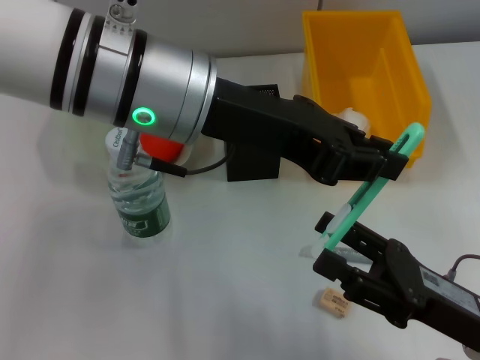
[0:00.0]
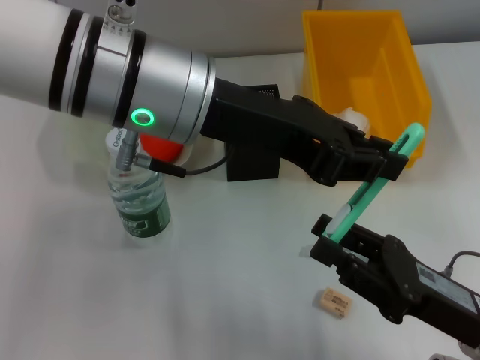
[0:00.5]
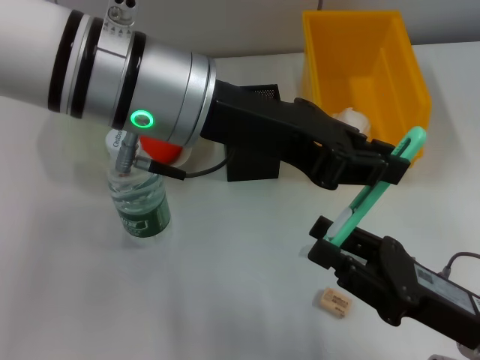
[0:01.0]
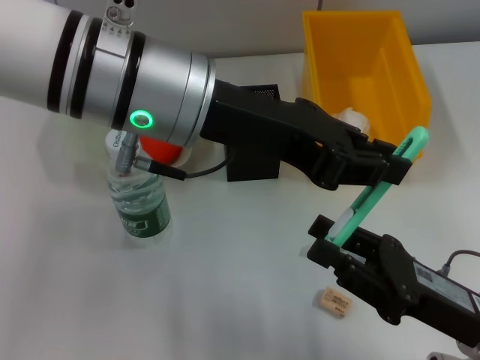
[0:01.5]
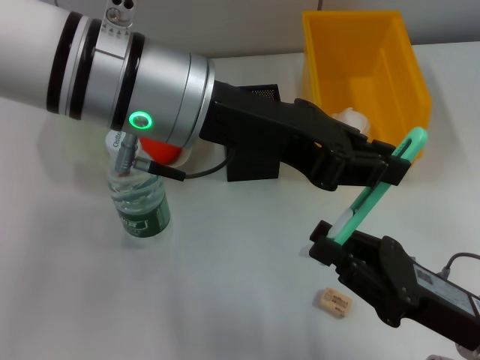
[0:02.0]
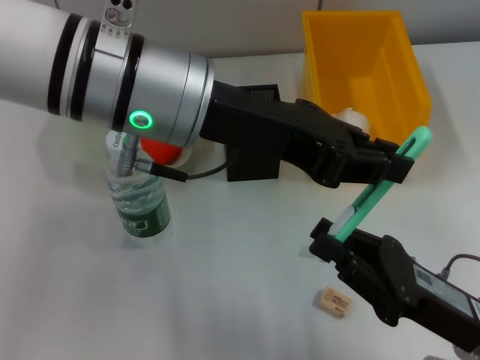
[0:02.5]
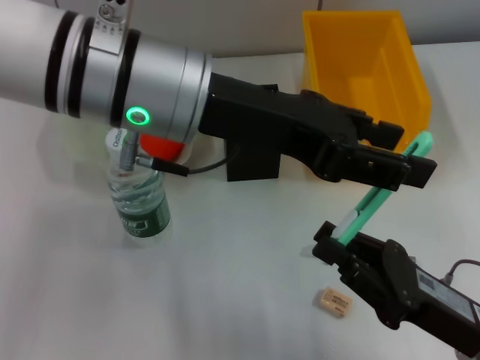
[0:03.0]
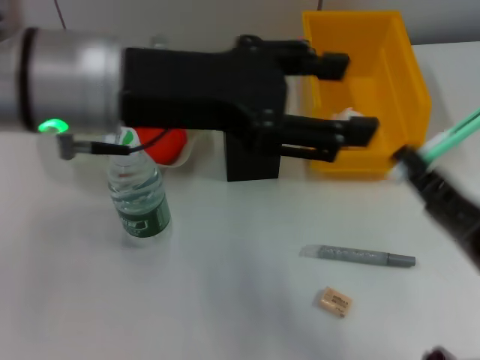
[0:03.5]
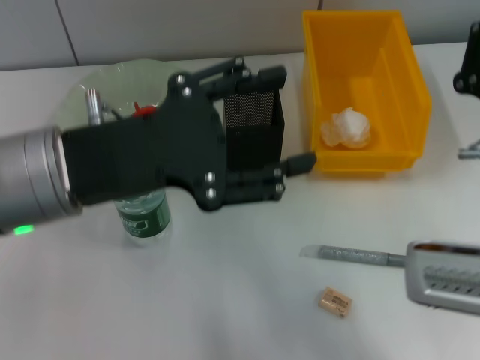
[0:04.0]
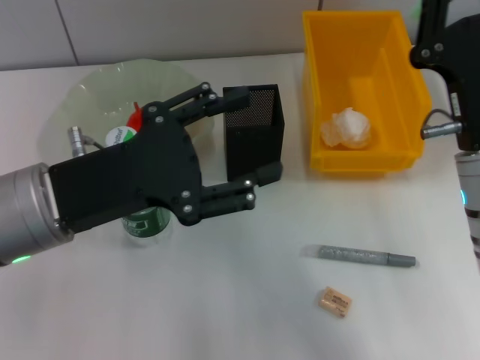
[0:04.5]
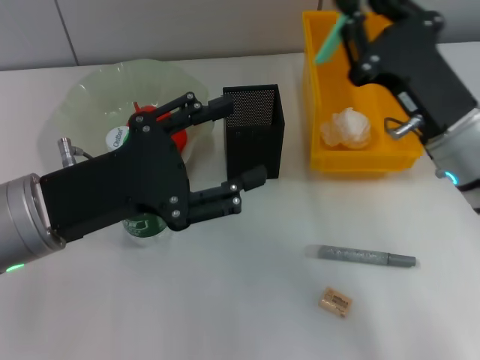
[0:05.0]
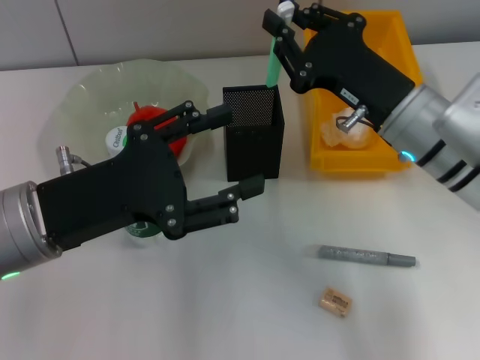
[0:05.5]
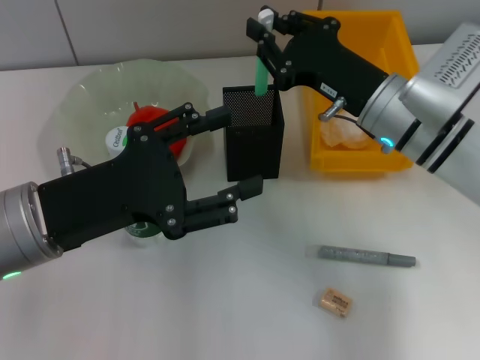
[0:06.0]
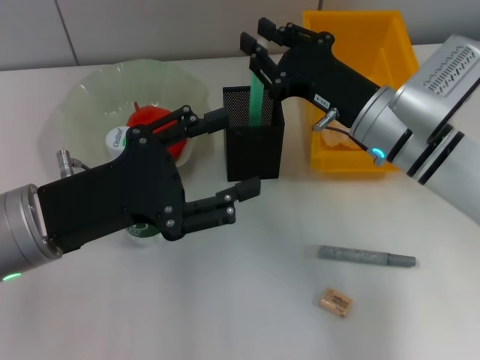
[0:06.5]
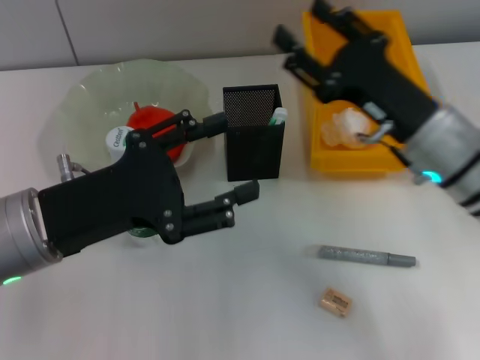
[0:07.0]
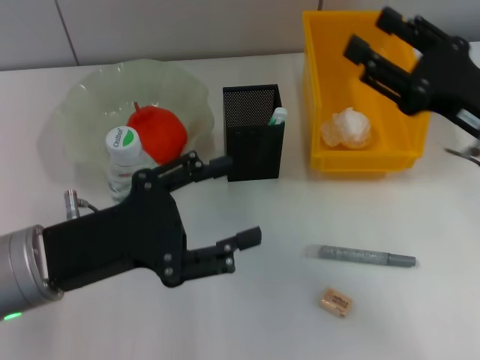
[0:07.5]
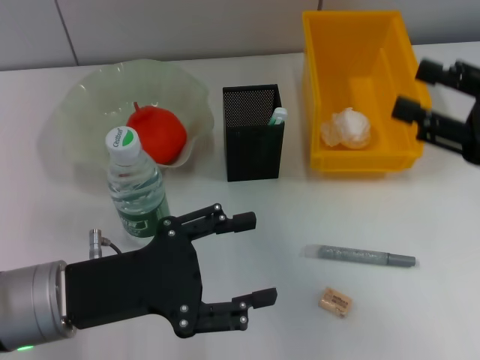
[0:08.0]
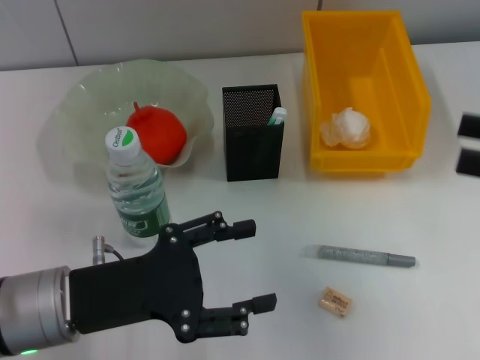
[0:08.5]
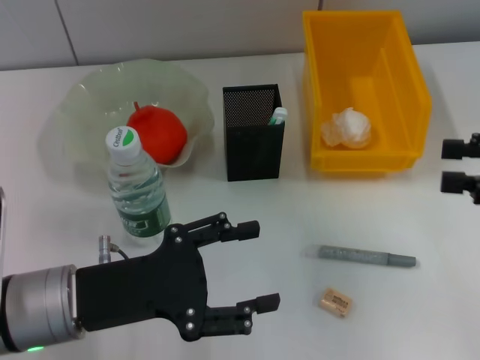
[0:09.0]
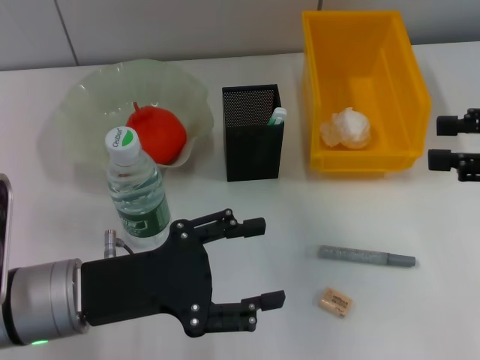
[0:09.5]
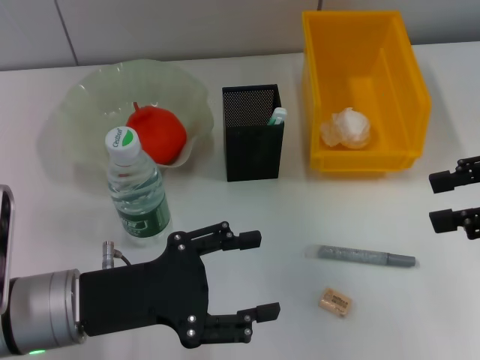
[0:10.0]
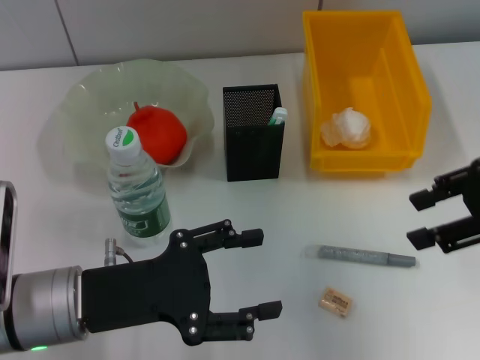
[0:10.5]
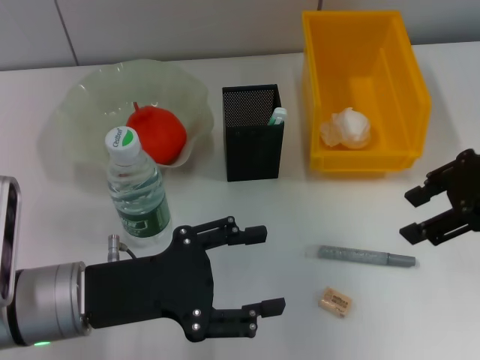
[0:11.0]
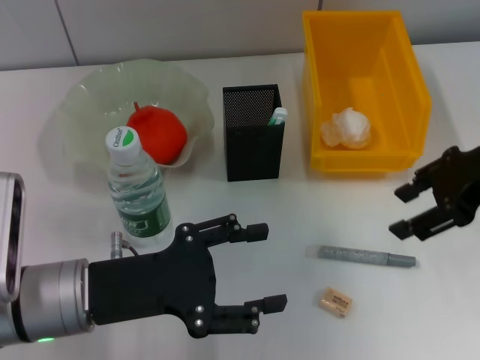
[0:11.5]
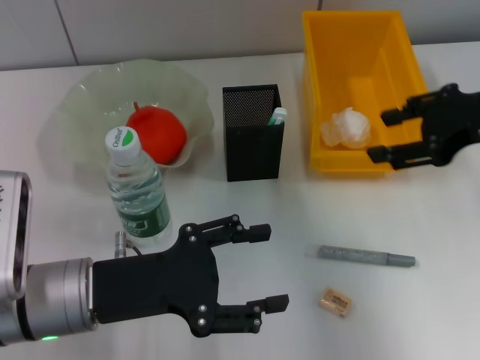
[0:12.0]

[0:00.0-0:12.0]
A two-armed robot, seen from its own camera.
Step, 0:00.0 to 0:02.5: Pass the blue utility knife from the left hand to the right hand.
Step, 0:03.0 to 0:06.5: Place the blue utility knife into the pen holder with the right hand.
0:00.0 to 0:02.0: The right gripper closes.
0:02.0 to 0:04.0: The left gripper is displaced to the left and downward by about 10 cm, and opens its fingers, while the right gripper heads forward and upward, covering some 10 cm.
0:04.0 to 0:06.0: The right gripper shifts some 10 cm forward; the left gripper is displaced downward by roughly 5 cm.
0:06.0 to 0:08.0: The right gripper goes some 20 cm to the right, backward and upward, and opens.
0:08.0 to 0:10.0: The right gripper ends up approximately 5 cm from where it was.
0:10.0 to 0:12.0: The right gripper travels forward and to the left by roughly 10 cm.

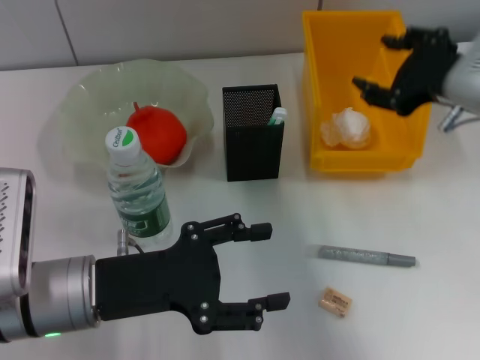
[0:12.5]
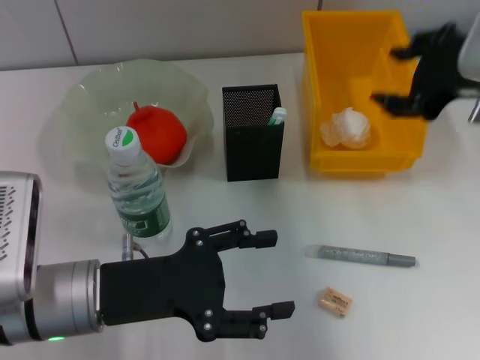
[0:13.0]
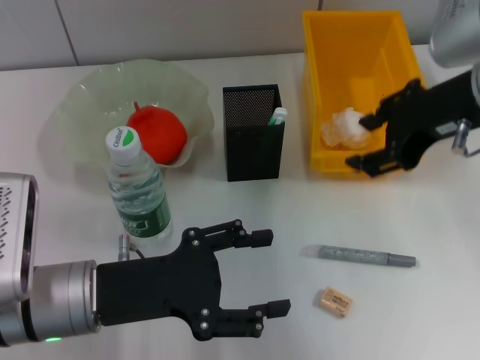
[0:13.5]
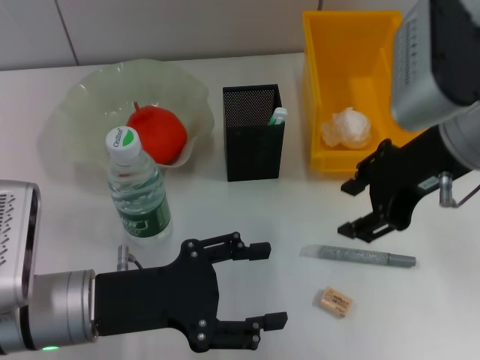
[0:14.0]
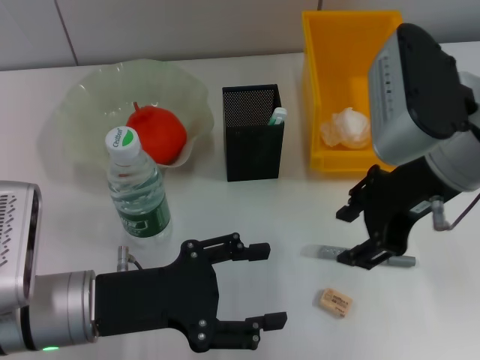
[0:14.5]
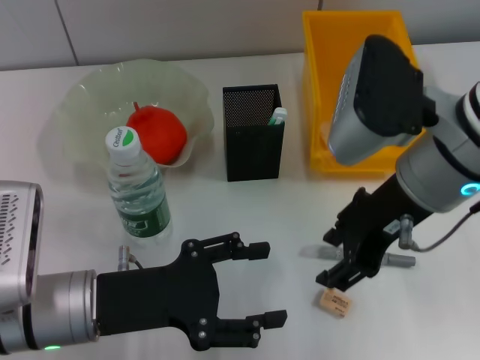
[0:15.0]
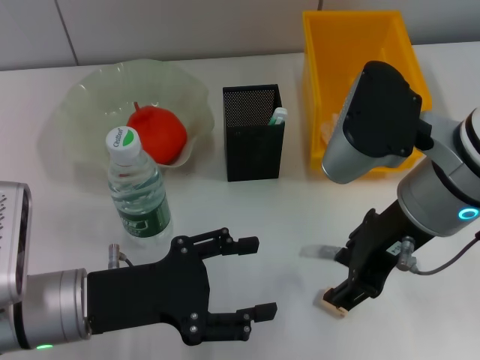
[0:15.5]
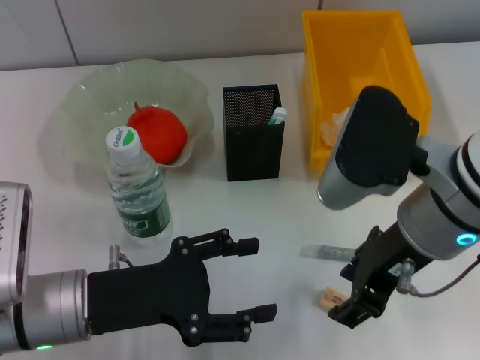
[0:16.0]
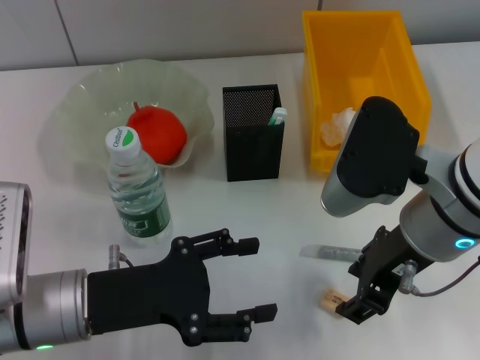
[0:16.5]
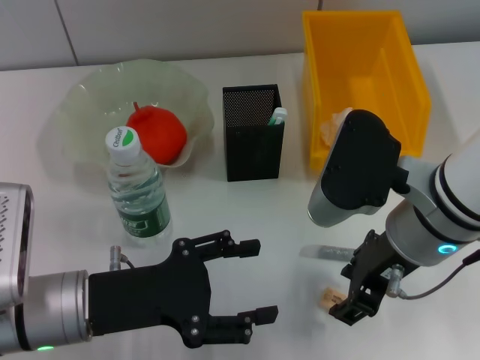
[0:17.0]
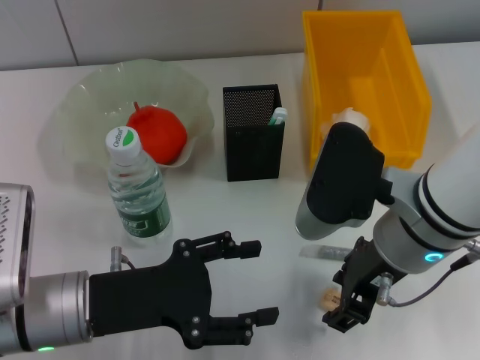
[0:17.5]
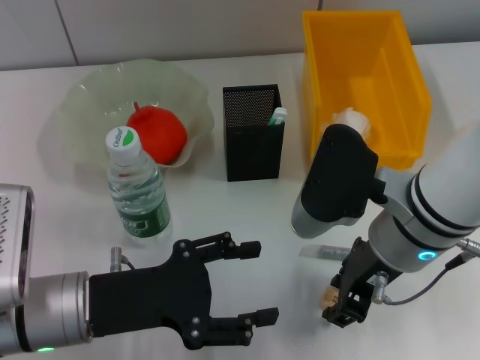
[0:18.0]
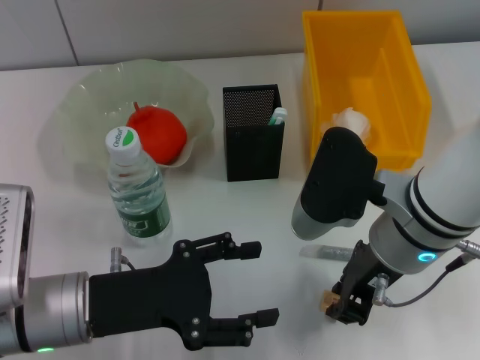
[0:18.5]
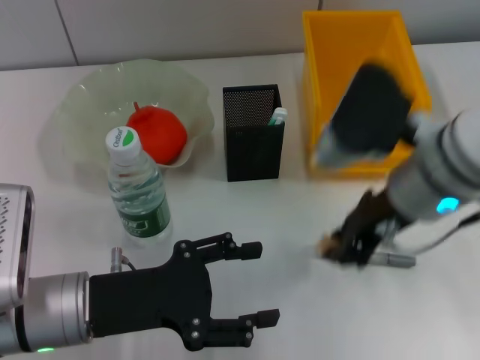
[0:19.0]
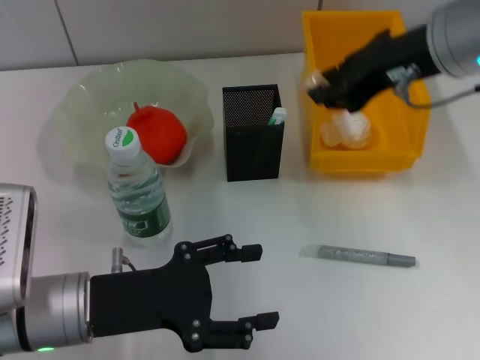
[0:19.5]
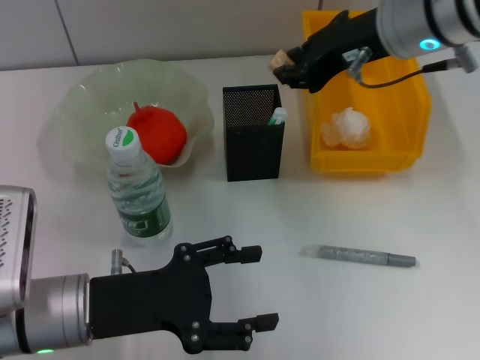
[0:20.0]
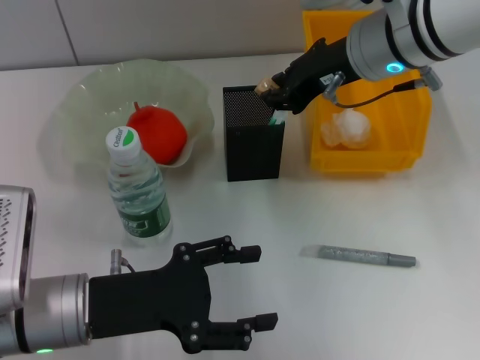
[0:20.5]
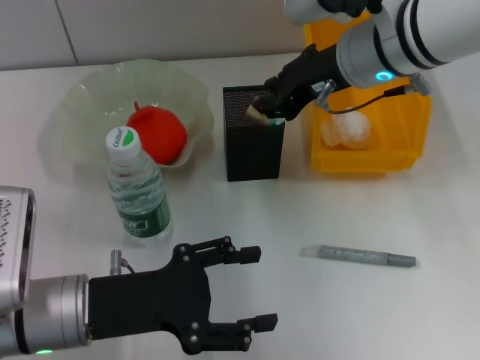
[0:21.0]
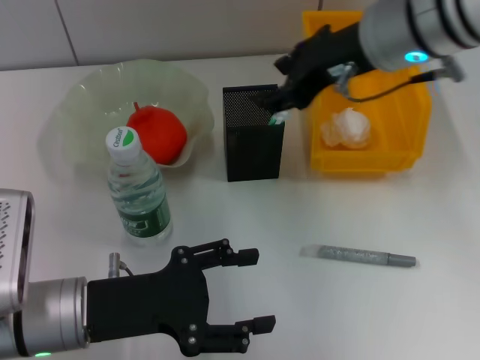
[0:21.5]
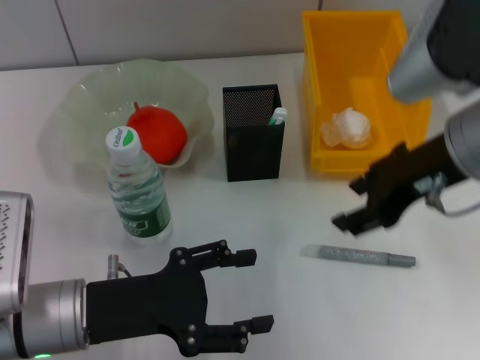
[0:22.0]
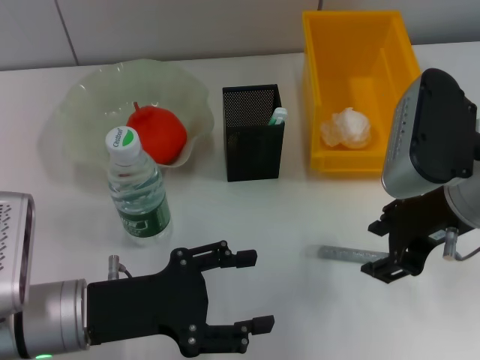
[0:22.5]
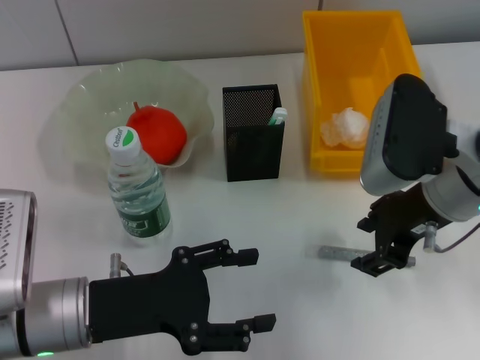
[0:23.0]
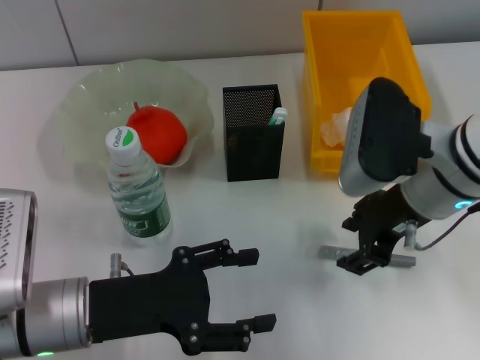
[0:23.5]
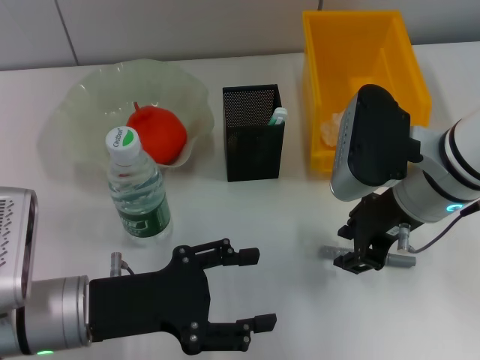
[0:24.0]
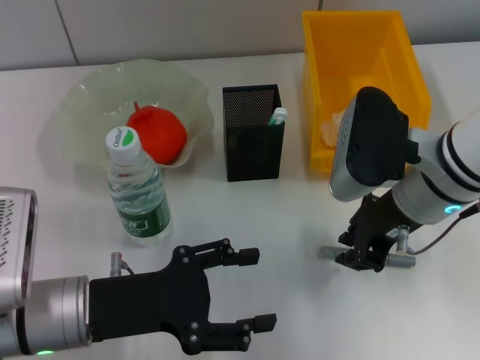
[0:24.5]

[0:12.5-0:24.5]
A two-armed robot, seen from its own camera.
Step, 0:12.5 to 0:18.5: Grab the eraser with the right hand.
Step, 0:19.0 to 0:21.0: Put the eraser into the pen holder with the right hand.
0:12.5 to 0:14.5: The right gripper moves to the left, approximately 5 cm.
0:14.5 to 0:16.5: The right gripper changes place by approximately 5 cm.
0:16.5 to 0:18.5: The grippers move only a little.
0:18.5 to 0:20.5: The right gripper heads forward and upward, covering about 15 cm.
0:20.5 to 0:22.5: The right gripper is displaced backward and to the right by approximately 10 cm, and opens.
0:22.5 to 0:24.5: The right gripper ends up some 5 cm from where it was.

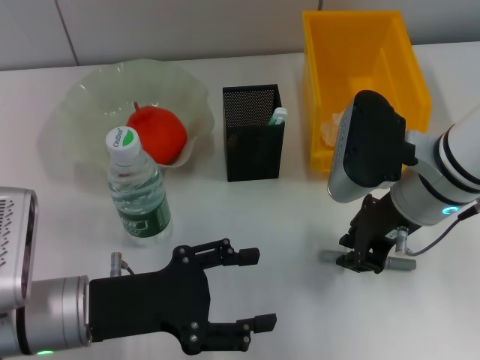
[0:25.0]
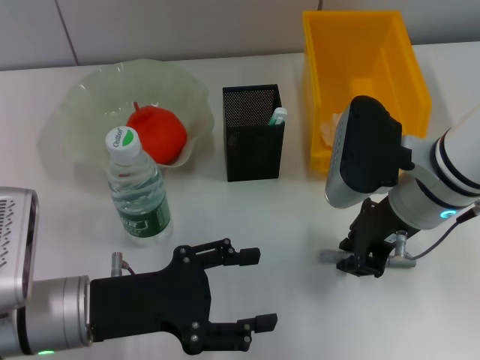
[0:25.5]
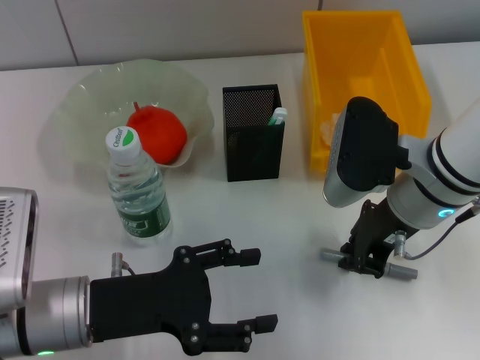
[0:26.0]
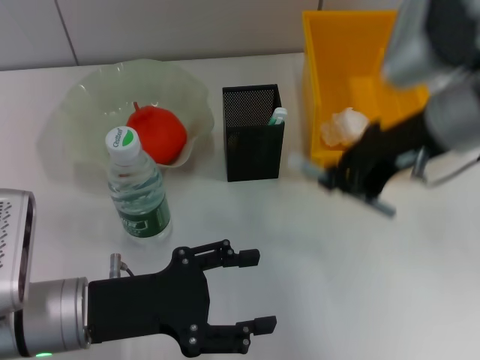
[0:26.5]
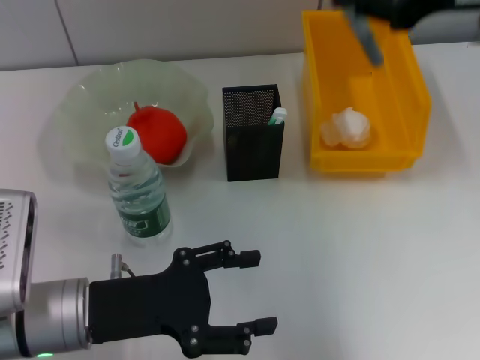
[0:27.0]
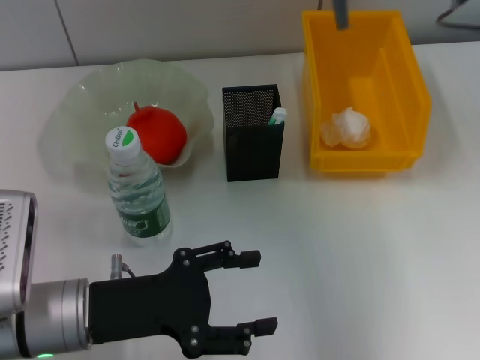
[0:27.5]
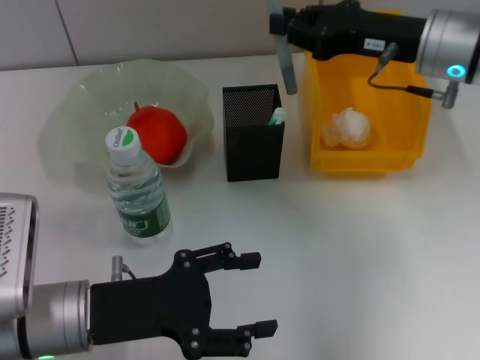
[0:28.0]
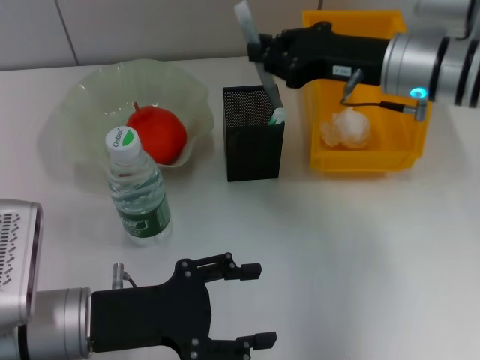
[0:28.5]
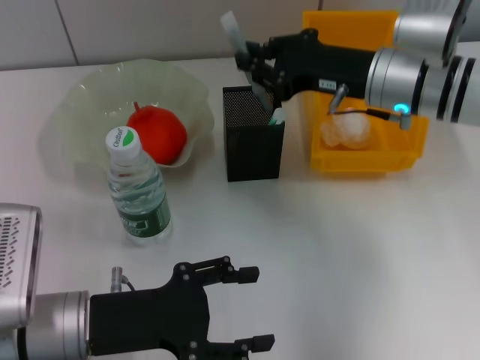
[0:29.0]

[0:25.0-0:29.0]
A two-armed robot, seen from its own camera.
0:25.0 to 0:27.0: The right gripper is displaced upward and to the right by about 15 cm.
0:27.0 to 0:29.0: The right gripper moves downward and forward, about 15 cm.
